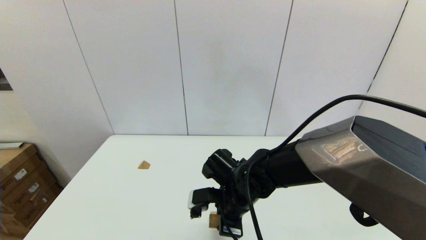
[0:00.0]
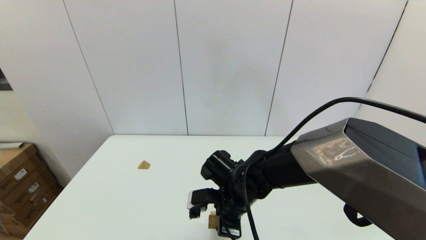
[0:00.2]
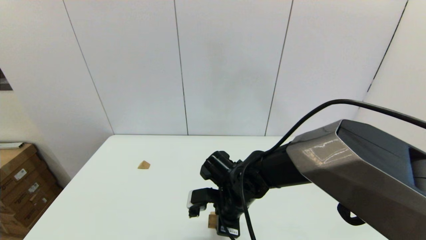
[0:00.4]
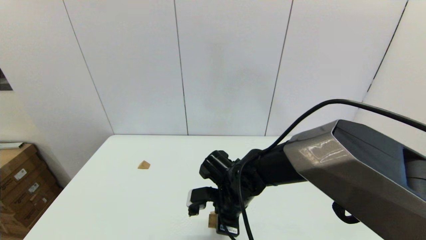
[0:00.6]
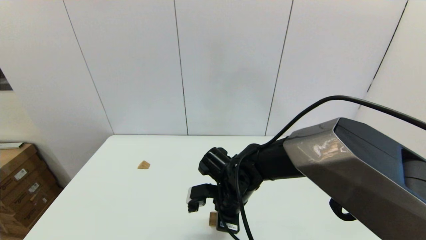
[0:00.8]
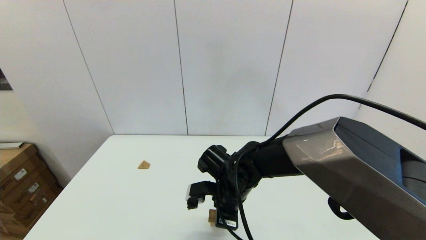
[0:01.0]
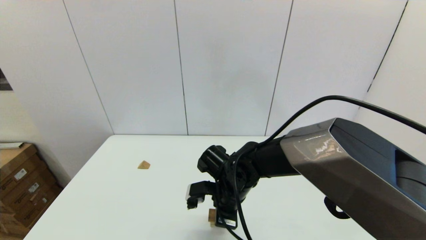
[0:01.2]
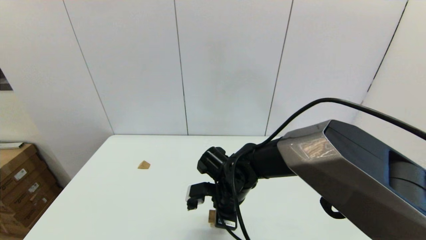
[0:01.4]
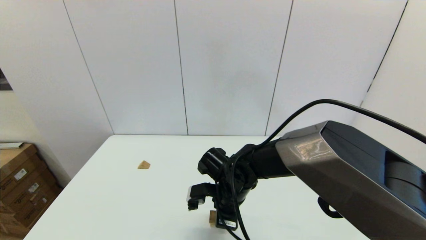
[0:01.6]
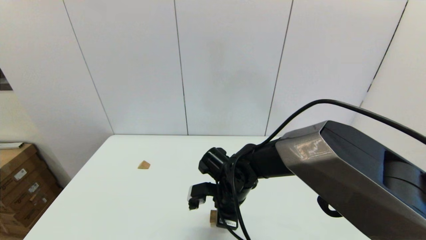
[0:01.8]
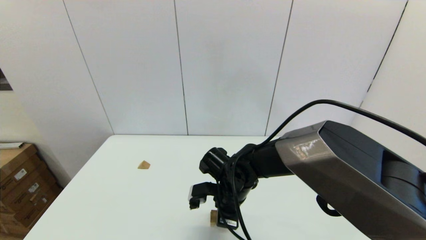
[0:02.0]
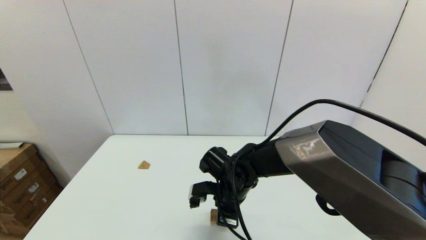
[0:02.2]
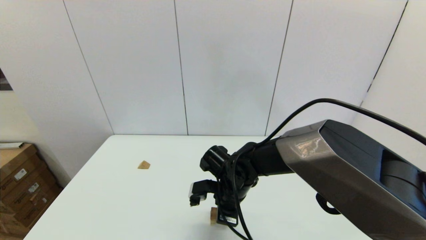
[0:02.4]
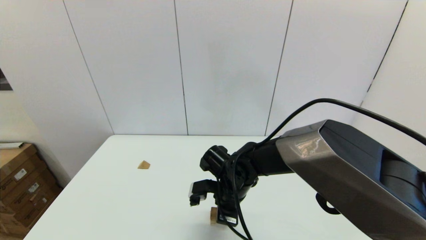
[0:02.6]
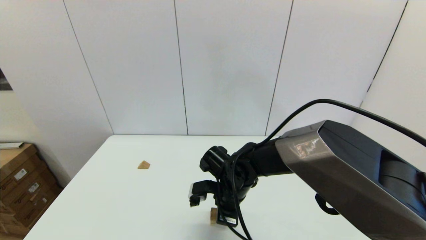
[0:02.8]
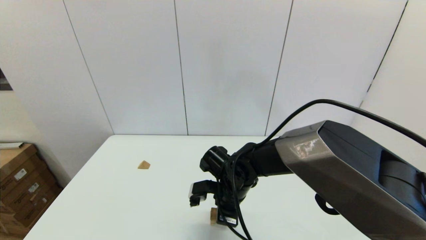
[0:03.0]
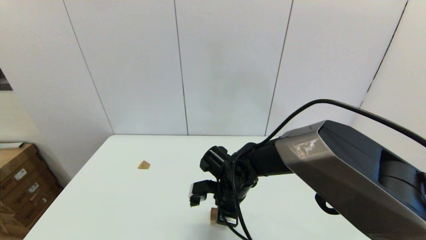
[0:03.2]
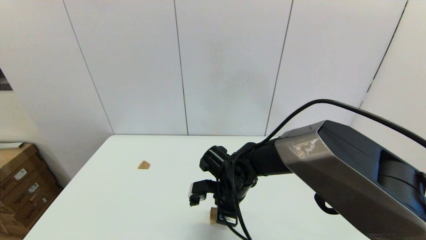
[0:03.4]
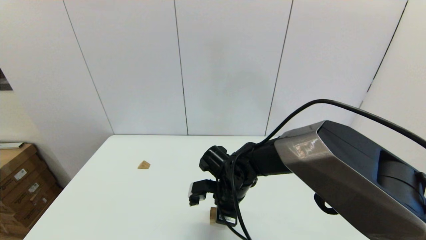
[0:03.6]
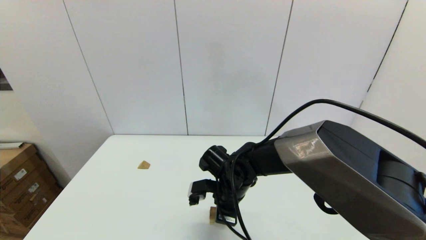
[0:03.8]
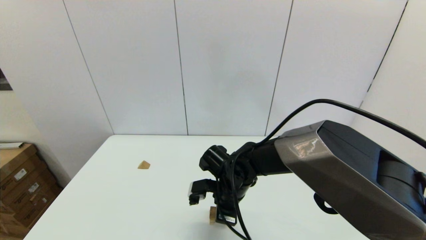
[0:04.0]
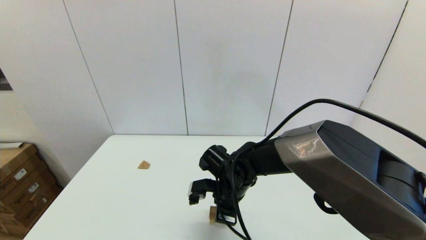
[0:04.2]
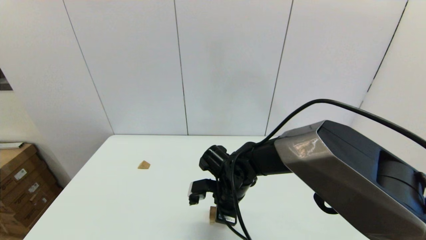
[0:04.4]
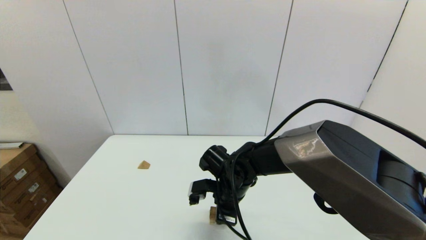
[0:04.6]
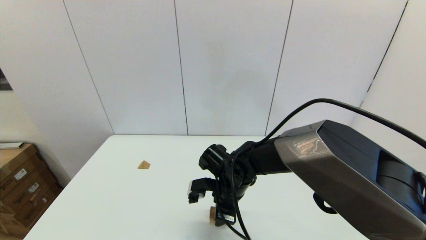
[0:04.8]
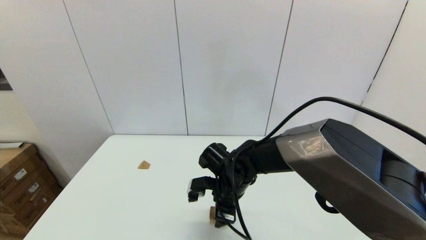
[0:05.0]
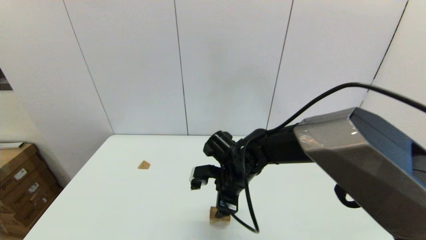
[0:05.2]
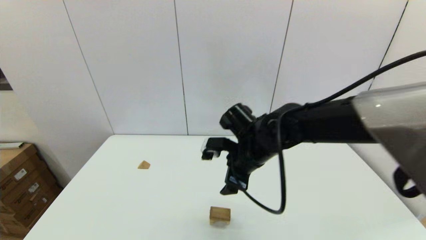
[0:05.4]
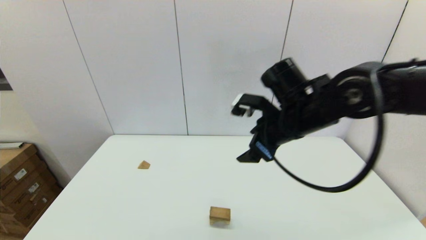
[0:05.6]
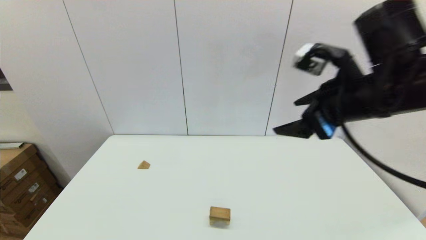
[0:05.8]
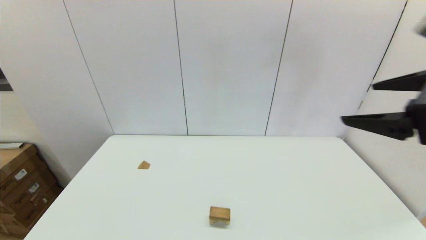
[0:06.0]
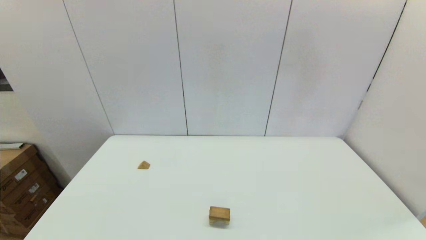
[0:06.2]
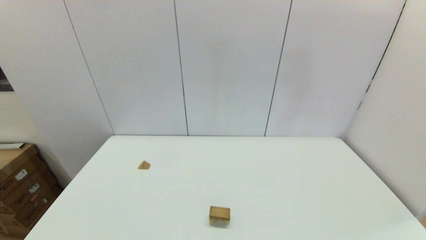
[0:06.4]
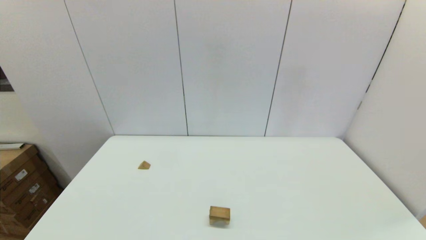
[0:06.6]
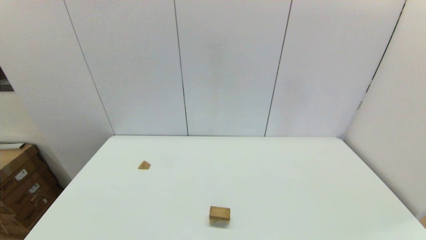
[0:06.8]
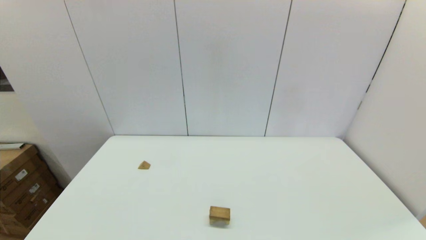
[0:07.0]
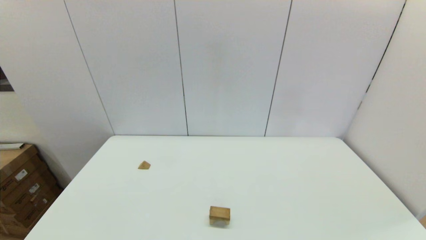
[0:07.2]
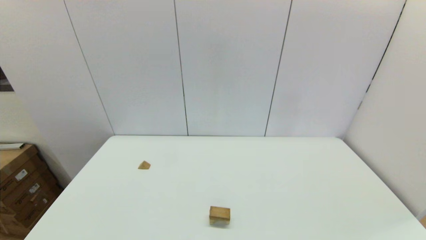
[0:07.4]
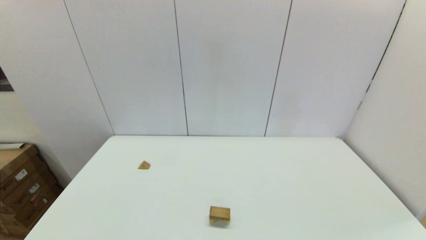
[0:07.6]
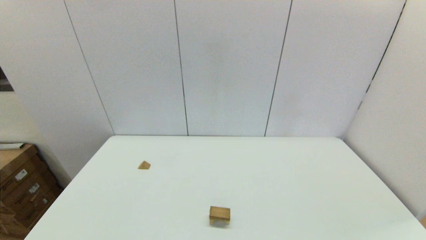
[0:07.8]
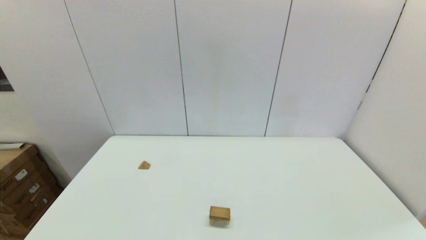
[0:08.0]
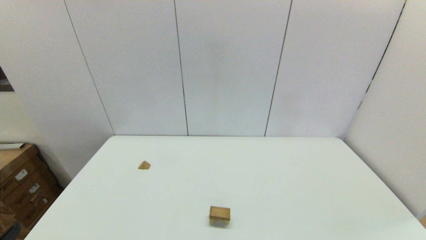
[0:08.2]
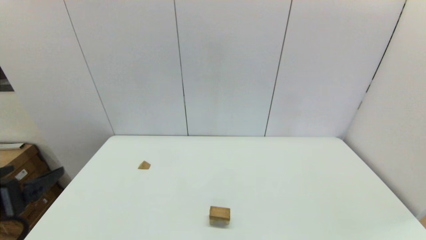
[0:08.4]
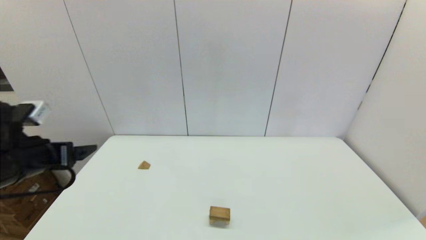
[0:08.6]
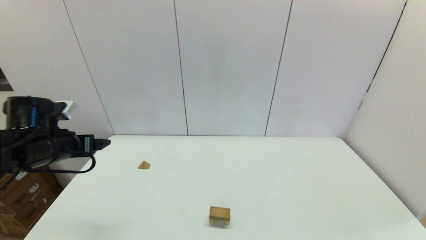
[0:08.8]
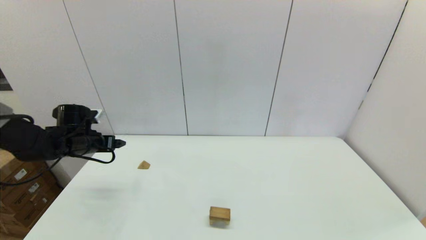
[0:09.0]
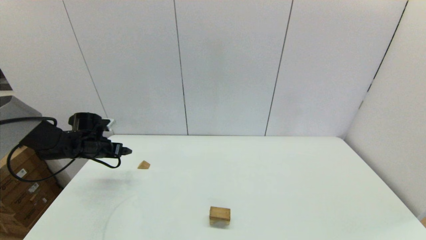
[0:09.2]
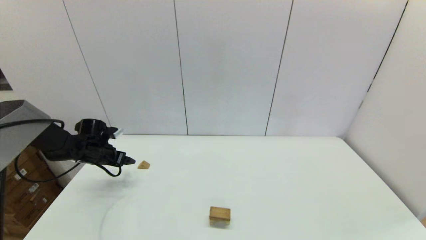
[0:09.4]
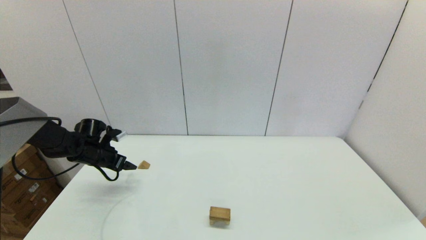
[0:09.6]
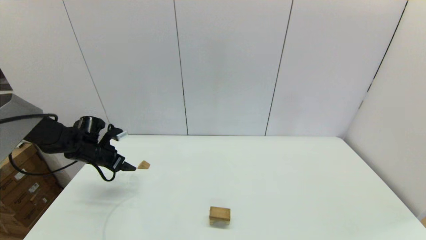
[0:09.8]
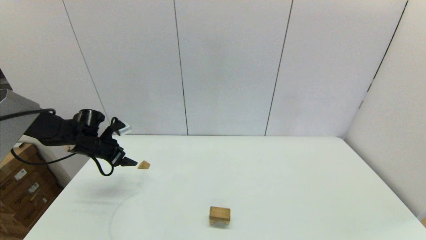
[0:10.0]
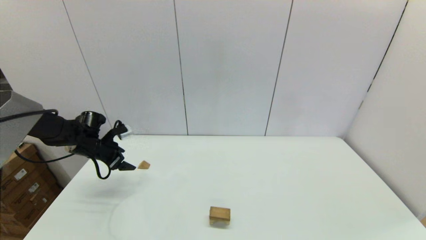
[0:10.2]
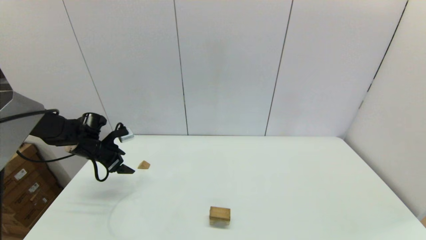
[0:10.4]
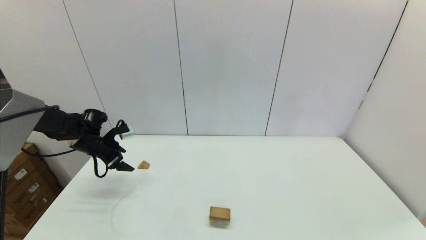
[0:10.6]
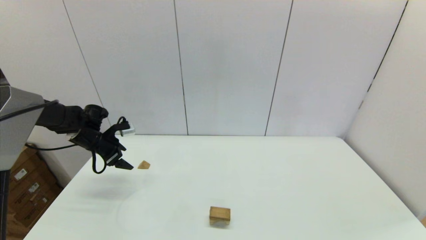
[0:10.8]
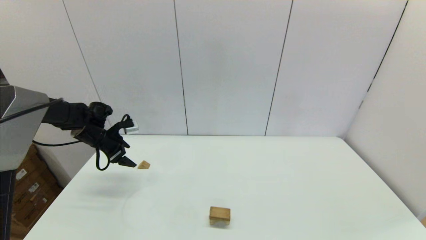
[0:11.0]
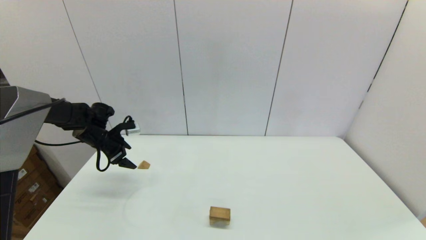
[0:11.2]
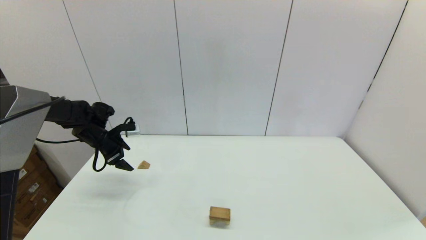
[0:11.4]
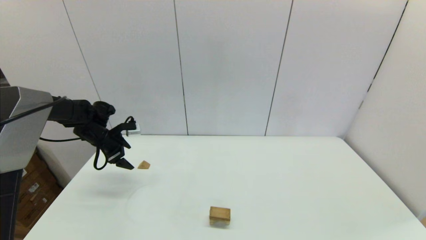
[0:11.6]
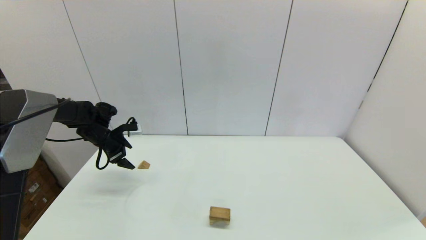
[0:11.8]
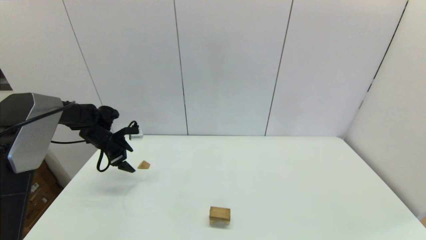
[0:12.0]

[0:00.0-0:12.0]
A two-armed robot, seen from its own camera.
Task of the whole recording: place the arched building blocks in the center of the table, set up the rectangular building blocks, and then set up the triangular building blocks.
Step, 0:00.0 to 0:04.6: Place the box-shaped block onto the arch-shaped block with the right gripper.
0:00.0 to 0:01.6: The grippers make only small movements.
0:01.6 to 0:04.4: Neither gripper changes place.
0:04.4 to 0:06.0: The right gripper shifts some 40 cm upward, to the right and backward, and opens.
0:06.0 to 0:07.6: The right gripper moves downward and backward, some 30 cm.
0:07.6 to 0:09.0: The left gripper moves forward, approximately 40 cm.
0:09.0 to 0:10.4: The left gripper moves approximately 5 cm.
0:10.4 to 0:12.0: The grippers stay close to where they were, moving slightly.

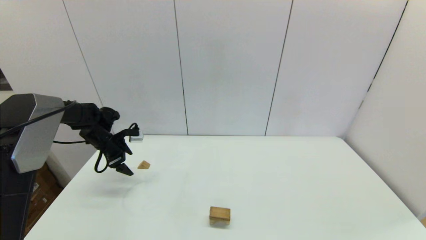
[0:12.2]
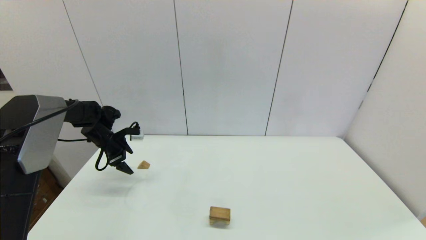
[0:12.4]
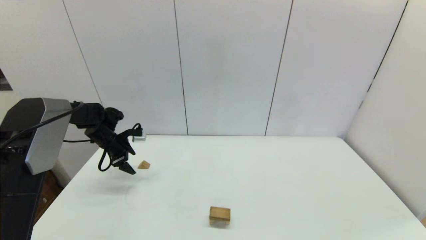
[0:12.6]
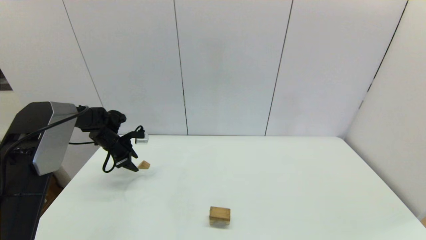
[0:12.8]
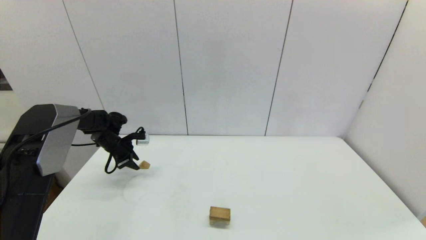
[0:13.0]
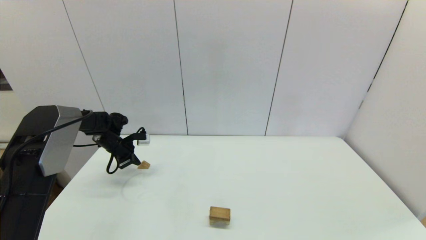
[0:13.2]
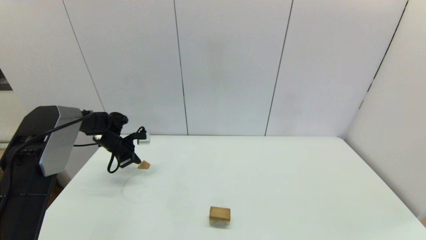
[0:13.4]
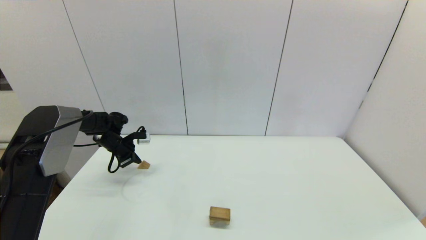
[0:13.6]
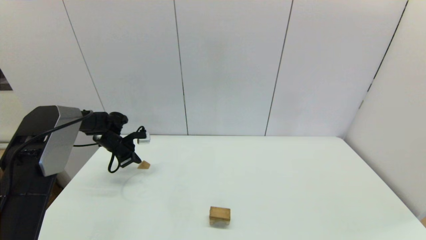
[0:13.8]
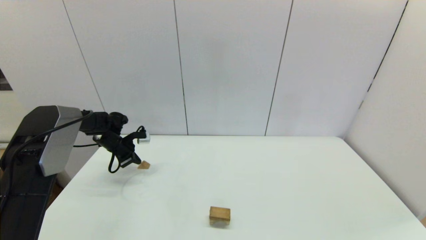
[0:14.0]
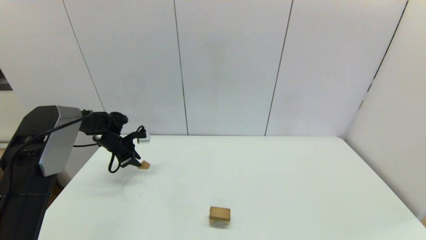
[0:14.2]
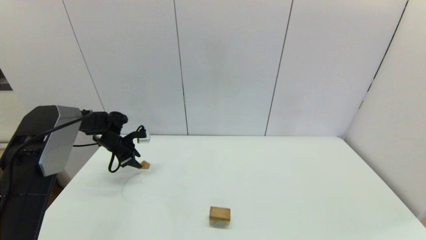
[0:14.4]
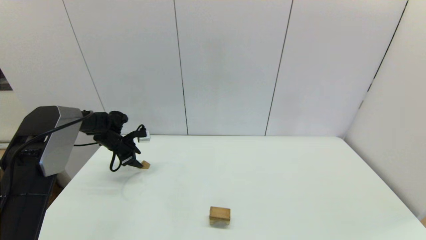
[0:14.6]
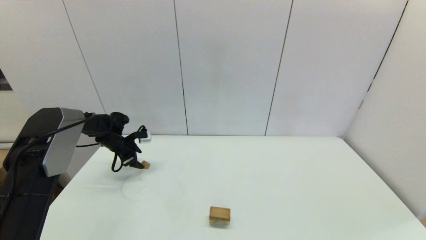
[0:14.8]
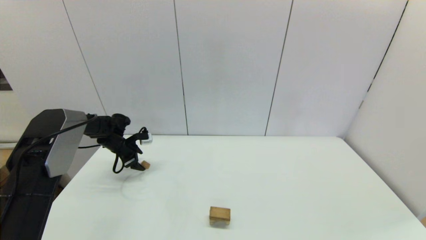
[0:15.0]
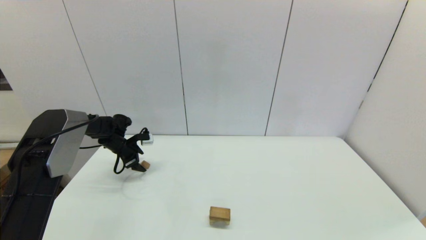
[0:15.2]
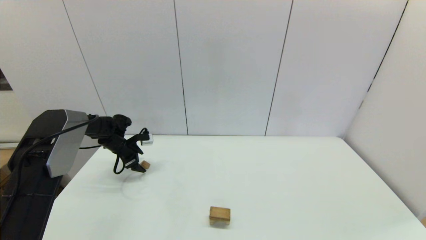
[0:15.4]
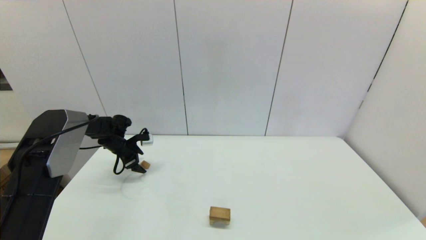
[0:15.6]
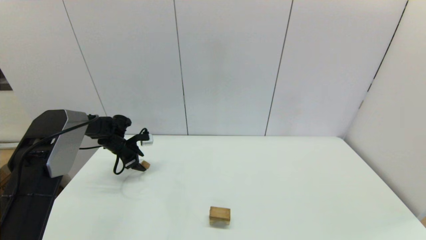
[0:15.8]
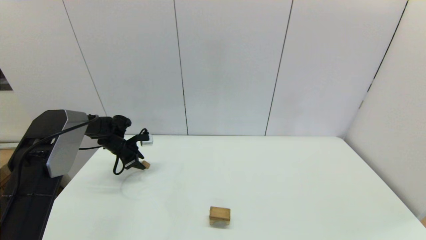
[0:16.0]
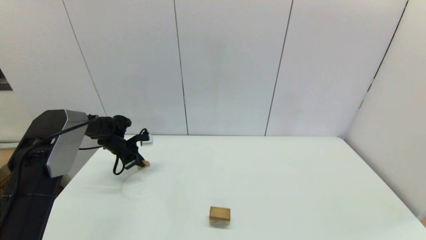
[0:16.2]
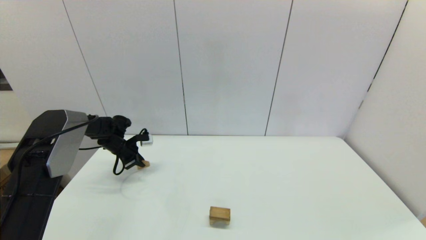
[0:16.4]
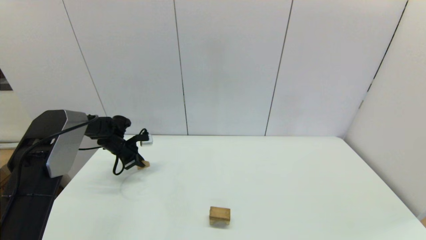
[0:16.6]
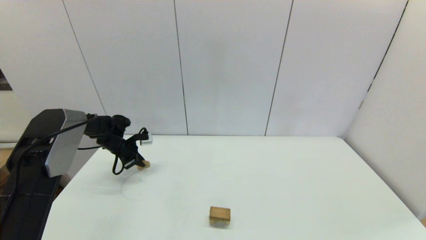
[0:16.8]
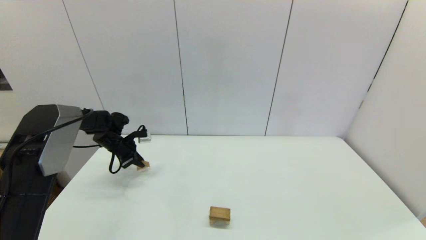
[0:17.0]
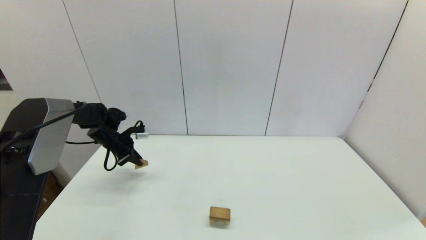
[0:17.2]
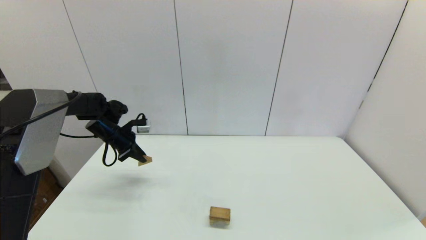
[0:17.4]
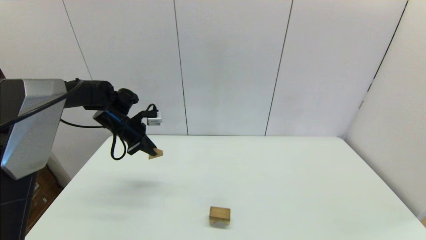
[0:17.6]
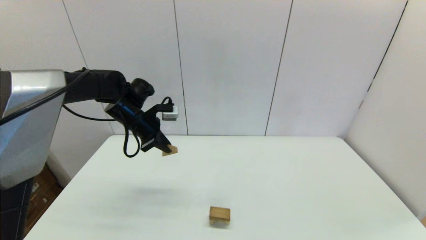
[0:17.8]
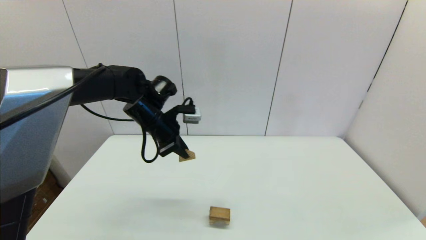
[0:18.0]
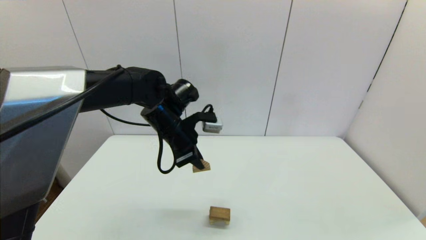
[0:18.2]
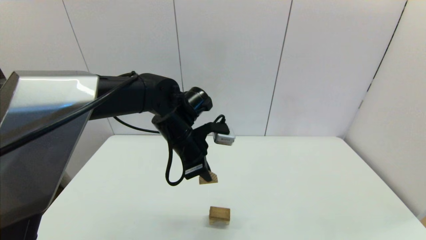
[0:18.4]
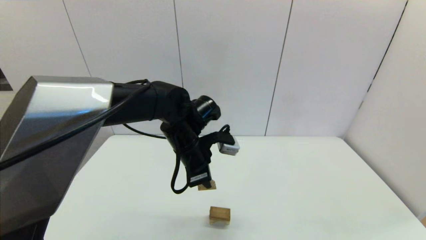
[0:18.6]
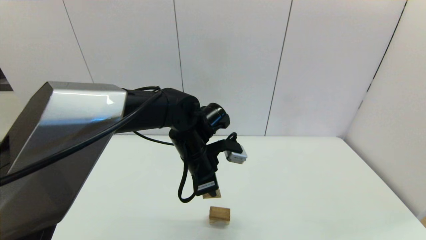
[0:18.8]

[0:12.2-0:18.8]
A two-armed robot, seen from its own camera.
Task of the whole recording: place the arched building blocks in the center of the table, set up the rectangular building blocks, and then set up the triangular building blocks.
Step, 0:12.2 to 0:16.4: Grasp the triangle-shaped block with the left gripper.
0:12.2 to 0:13.8: The left gripper moves approximately 5 cm, and closes up.
0:13.8 to 0:15.4: The left gripper opens its fingers.
0:15.4 to 0:17.2: The left gripper is displaced upward by roughly 5 cm, and closes up.
0:17.2 to 0:18.8: The left gripper moves to the right and backward, roughly 30 cm.
